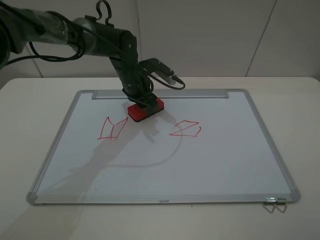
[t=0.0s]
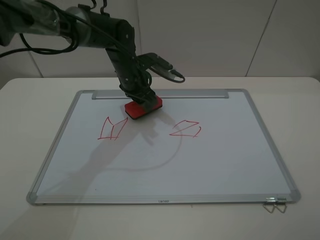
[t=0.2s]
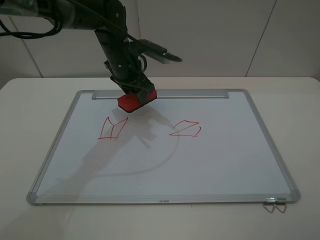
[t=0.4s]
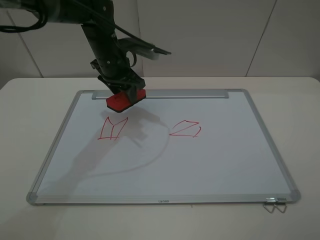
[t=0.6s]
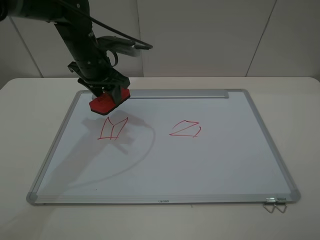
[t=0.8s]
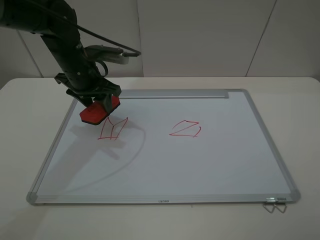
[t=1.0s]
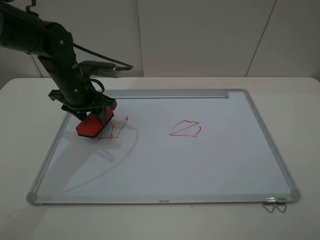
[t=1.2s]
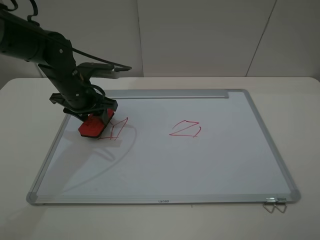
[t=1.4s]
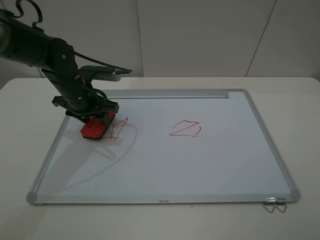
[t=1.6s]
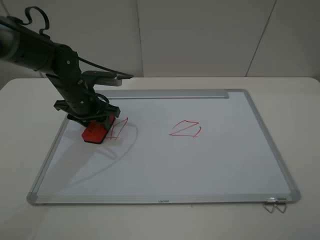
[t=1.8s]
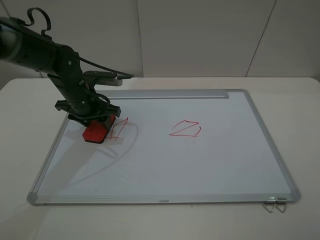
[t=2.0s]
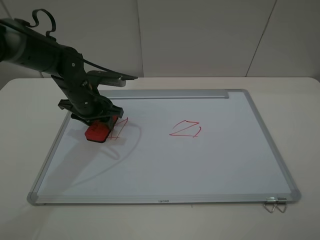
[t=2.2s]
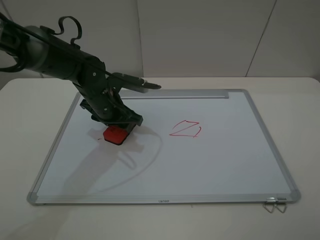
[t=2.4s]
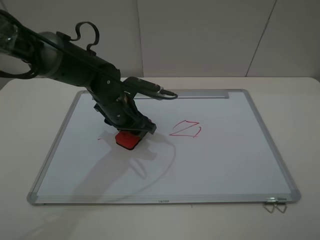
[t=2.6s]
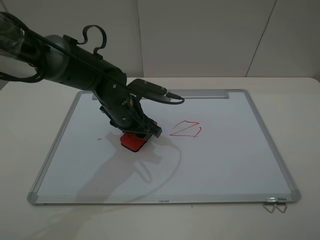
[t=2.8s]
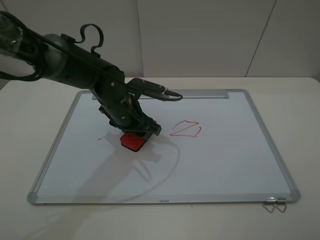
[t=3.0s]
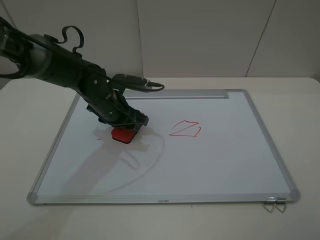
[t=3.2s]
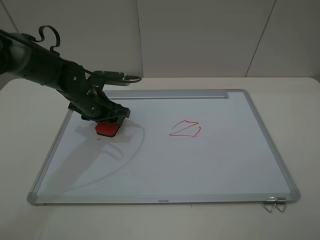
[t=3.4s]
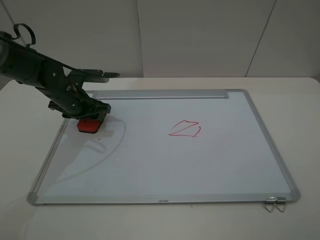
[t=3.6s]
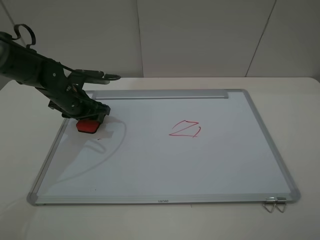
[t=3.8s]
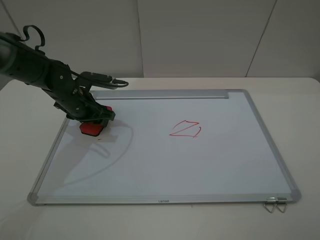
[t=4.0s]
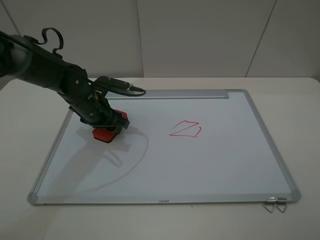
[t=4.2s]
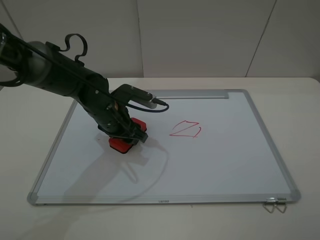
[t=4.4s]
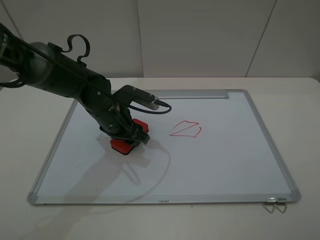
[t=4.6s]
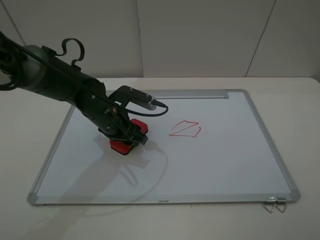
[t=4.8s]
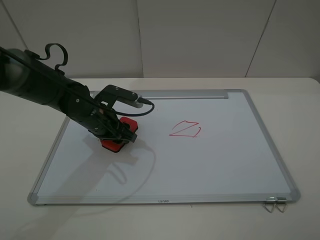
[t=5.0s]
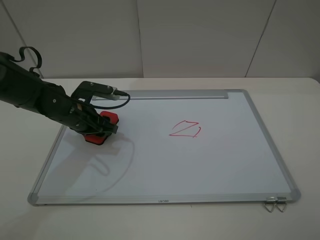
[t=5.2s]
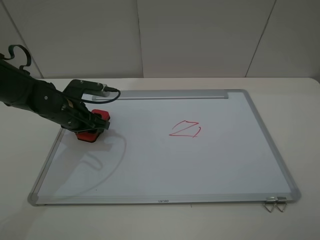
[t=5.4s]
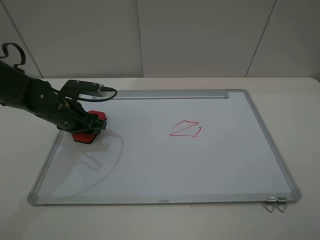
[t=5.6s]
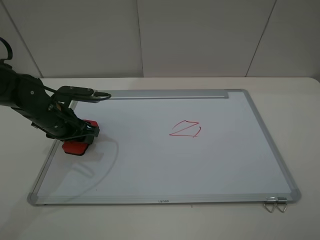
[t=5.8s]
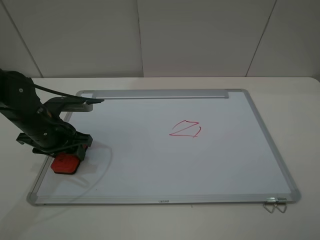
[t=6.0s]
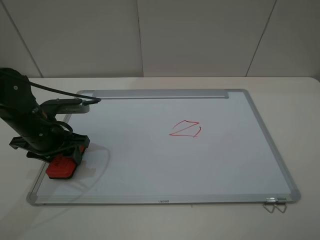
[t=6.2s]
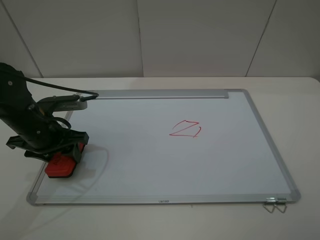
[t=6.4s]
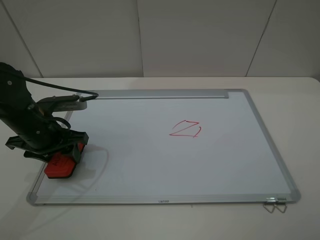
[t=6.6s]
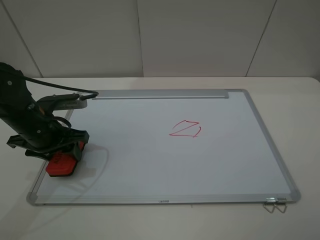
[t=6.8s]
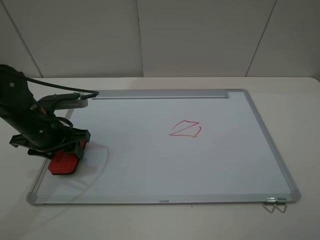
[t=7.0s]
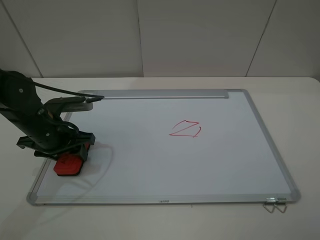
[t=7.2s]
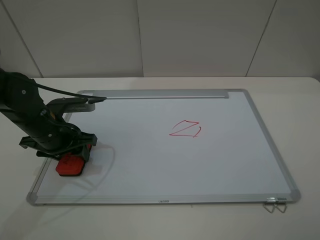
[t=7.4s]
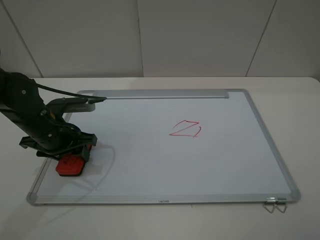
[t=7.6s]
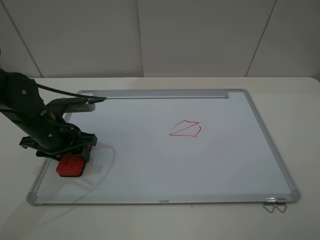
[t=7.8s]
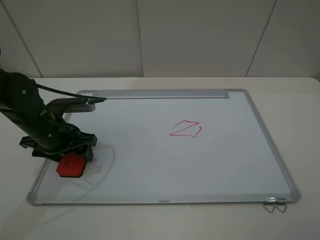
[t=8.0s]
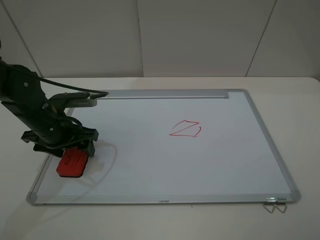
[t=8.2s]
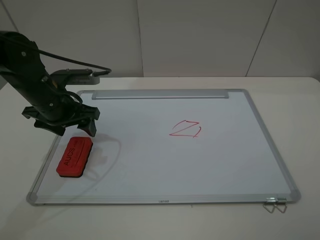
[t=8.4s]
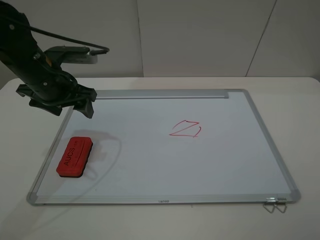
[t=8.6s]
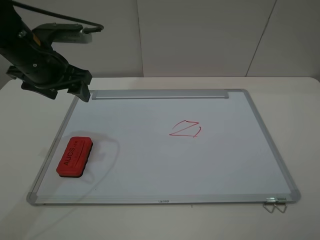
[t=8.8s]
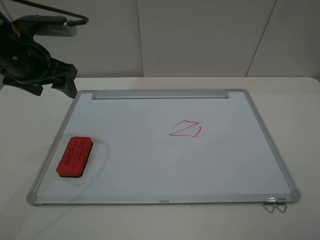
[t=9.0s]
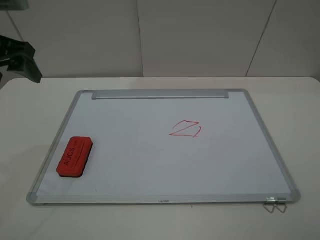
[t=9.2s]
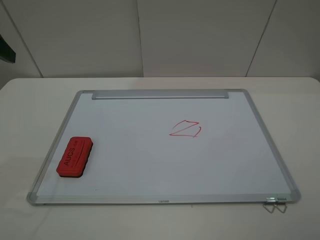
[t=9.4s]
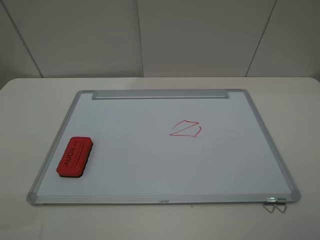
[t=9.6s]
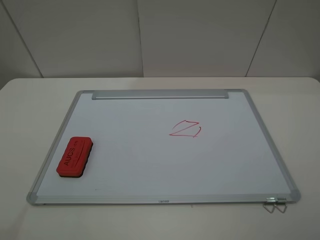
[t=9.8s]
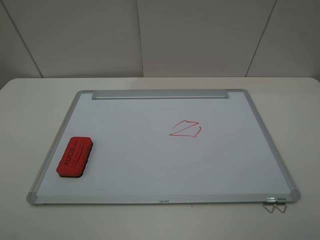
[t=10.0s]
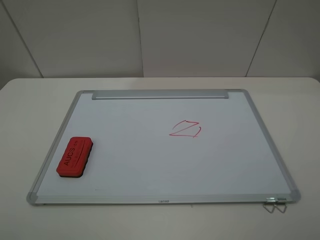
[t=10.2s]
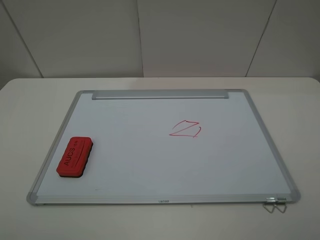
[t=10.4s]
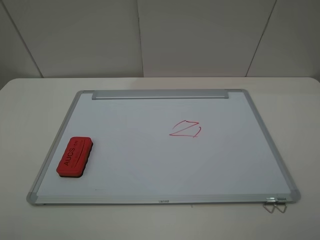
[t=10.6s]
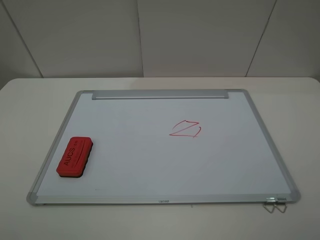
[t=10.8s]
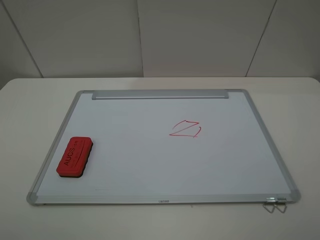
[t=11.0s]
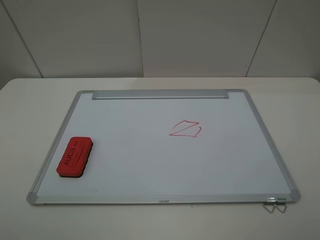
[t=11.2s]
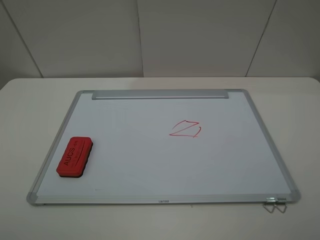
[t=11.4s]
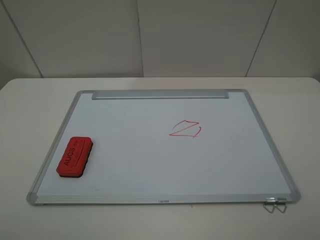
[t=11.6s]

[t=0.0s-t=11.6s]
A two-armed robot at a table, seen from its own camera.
Step, t=0.0s to t=5.8s: Grasp the eraser and wipe the blackboard with the left gripper.
Step, t=6.0s to t=8.2s: Place the eraser with the left gripper.
t=0.0s to t=1.4s: The left gripper heads to the left and backward, covering roughly 15 cm.
t=1.4s to t=2.8s: The left gripper goes roughly 10 cm to the right.
t=2.8s to t=4.4s: The left gripper reaches roughly 15 cm to the left, then returns.
t=4.4s to t=5.8s: The left gripper travels to the left by some 10 cm.
t=5.8s to t=7.2s: The grippers move only a little.
t=7.2s to t=8.8s: The left gripper travels upward by some 15 cm, and opens its fingers.
t=8.8s to t=10.2s: The left gripper is displaced backward by some 30 cm.

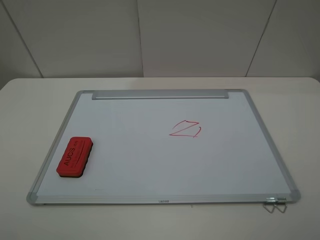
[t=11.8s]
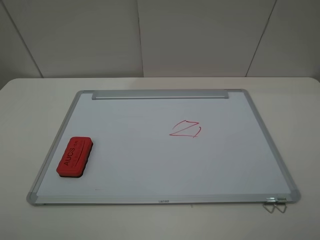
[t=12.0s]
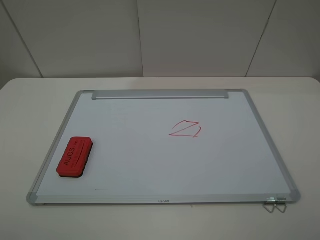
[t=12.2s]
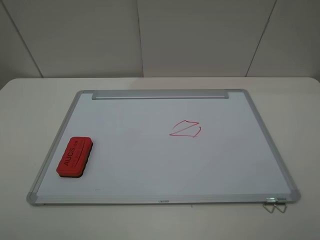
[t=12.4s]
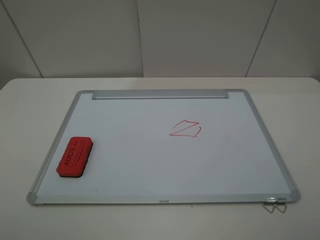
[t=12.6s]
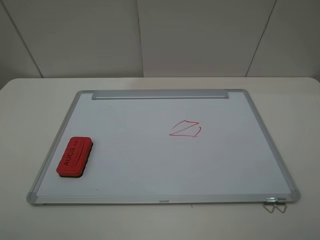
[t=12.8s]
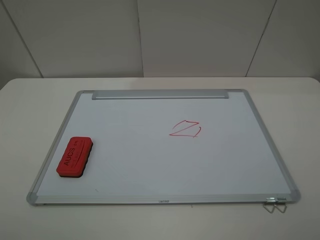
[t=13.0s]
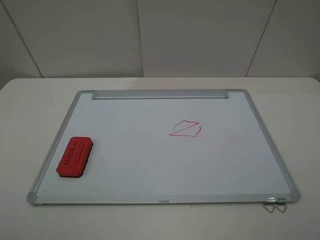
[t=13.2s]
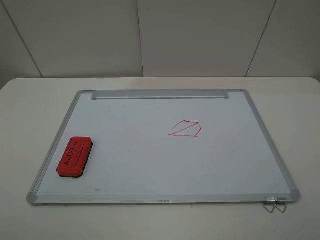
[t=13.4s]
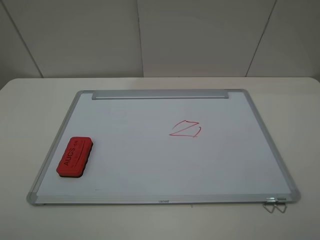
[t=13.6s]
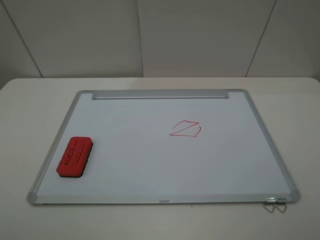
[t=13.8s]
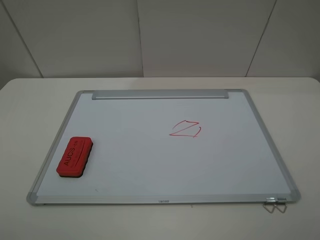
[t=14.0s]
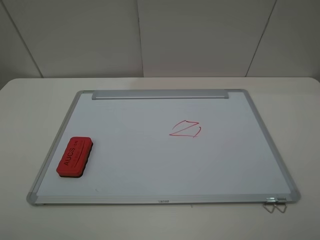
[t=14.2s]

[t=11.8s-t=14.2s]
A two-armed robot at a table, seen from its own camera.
t=11.8s to t=14.2s: Both grippers stay put.
